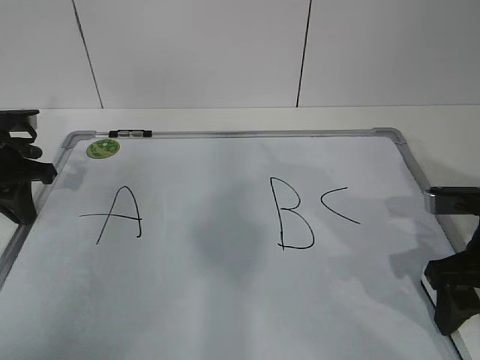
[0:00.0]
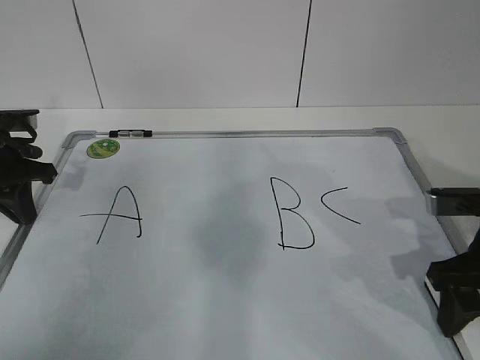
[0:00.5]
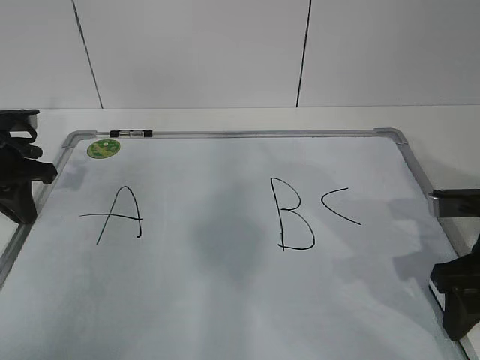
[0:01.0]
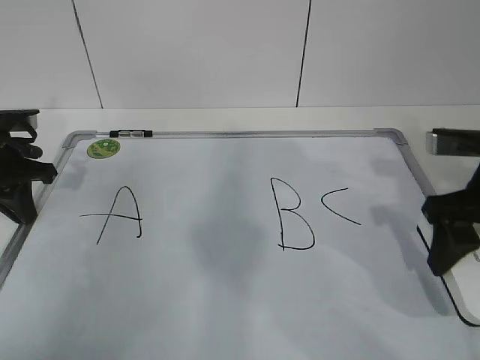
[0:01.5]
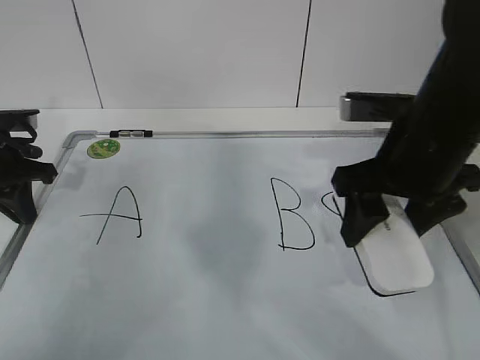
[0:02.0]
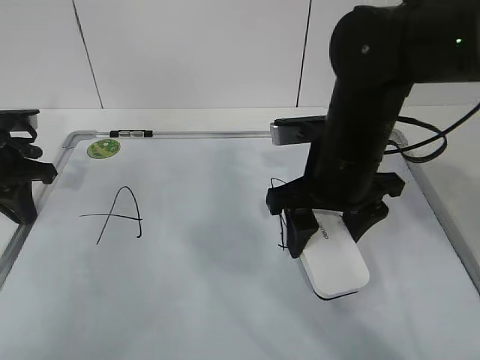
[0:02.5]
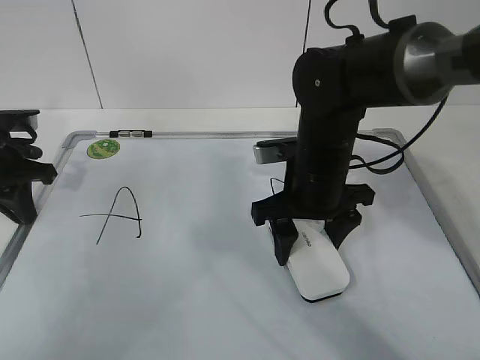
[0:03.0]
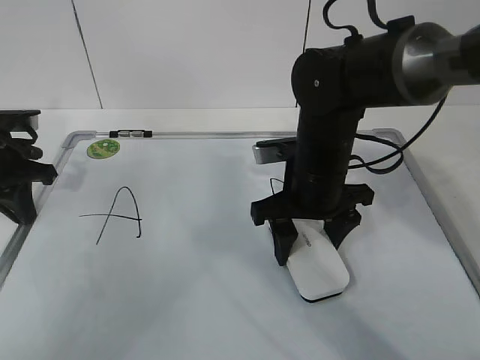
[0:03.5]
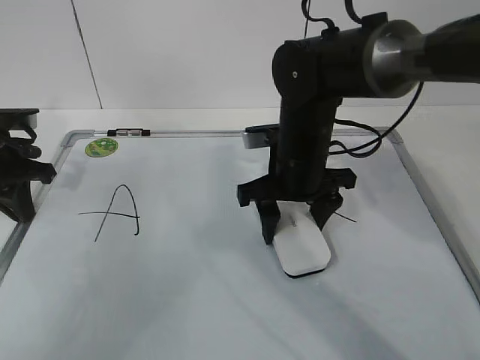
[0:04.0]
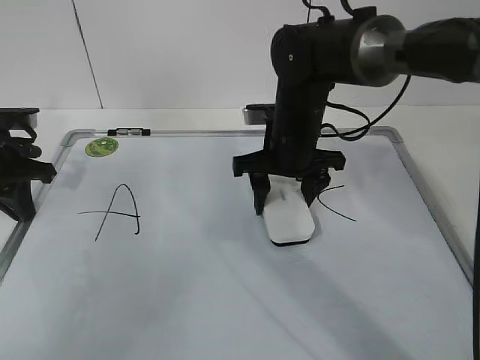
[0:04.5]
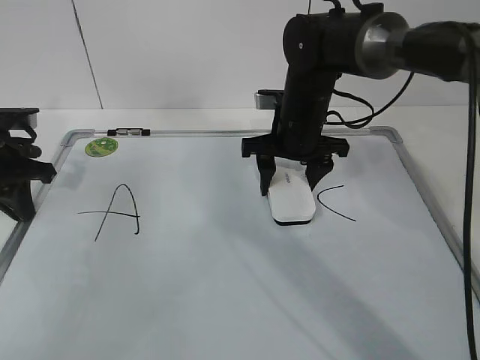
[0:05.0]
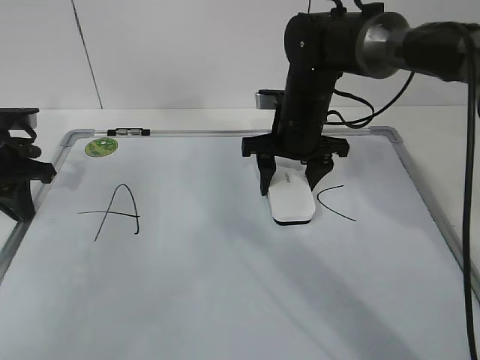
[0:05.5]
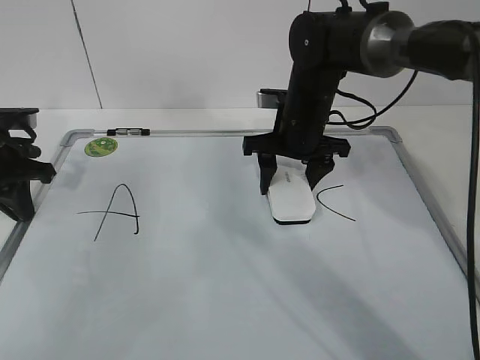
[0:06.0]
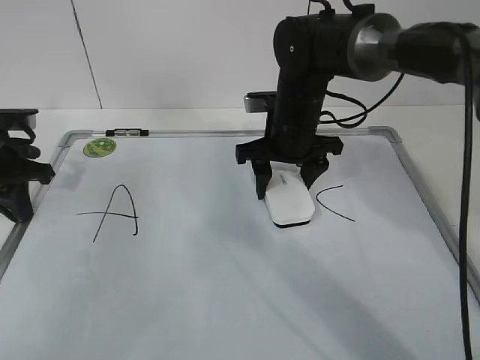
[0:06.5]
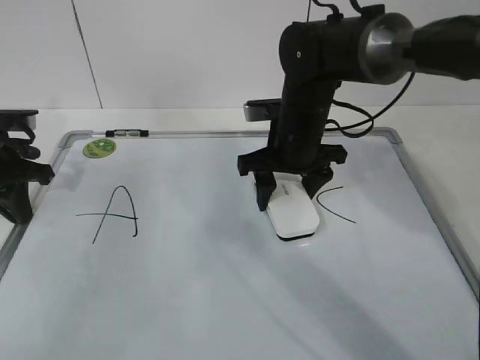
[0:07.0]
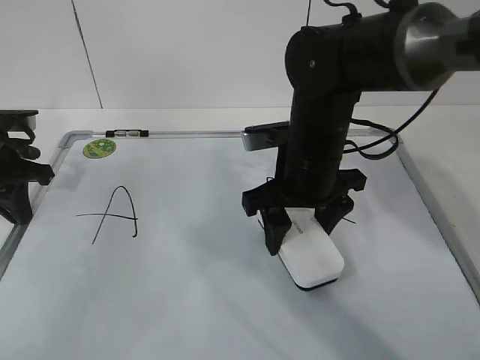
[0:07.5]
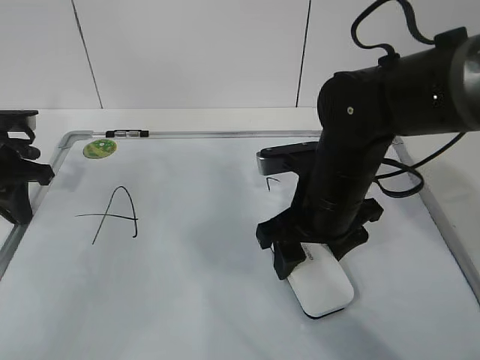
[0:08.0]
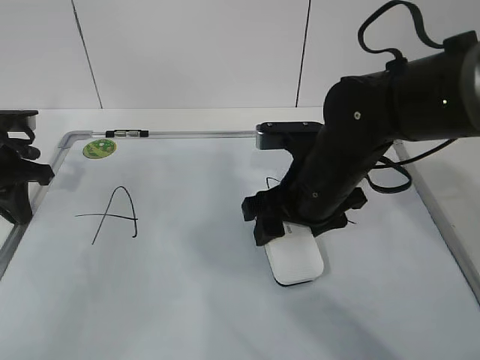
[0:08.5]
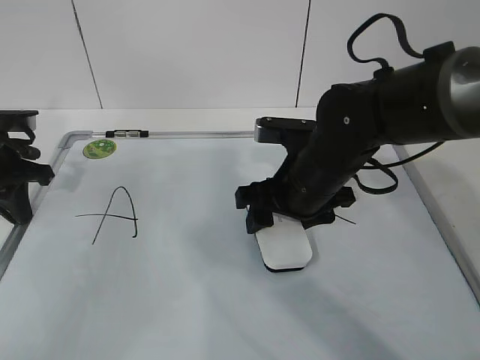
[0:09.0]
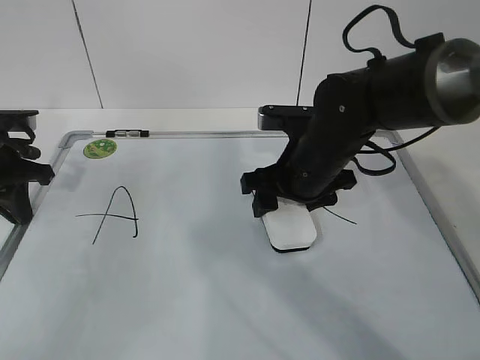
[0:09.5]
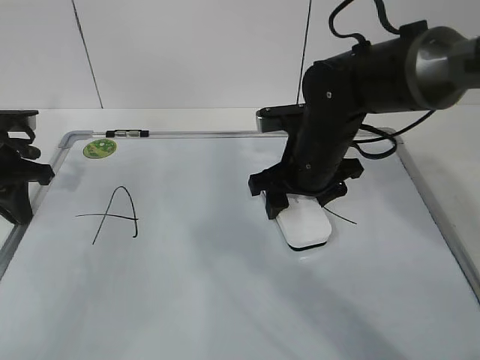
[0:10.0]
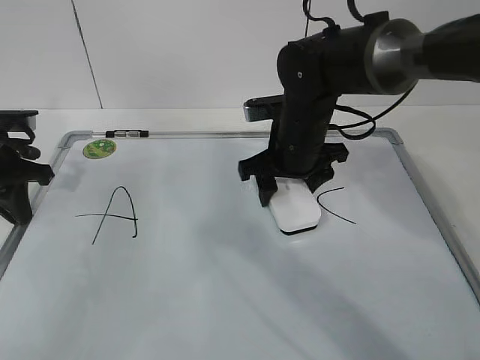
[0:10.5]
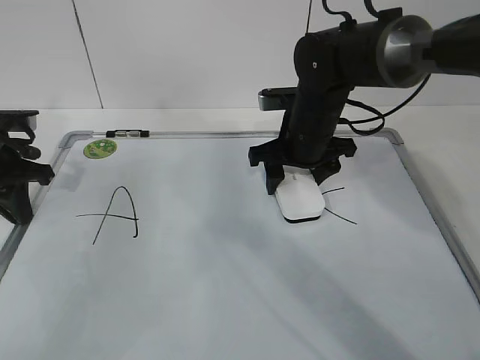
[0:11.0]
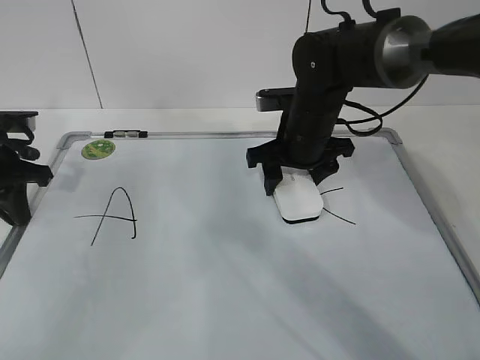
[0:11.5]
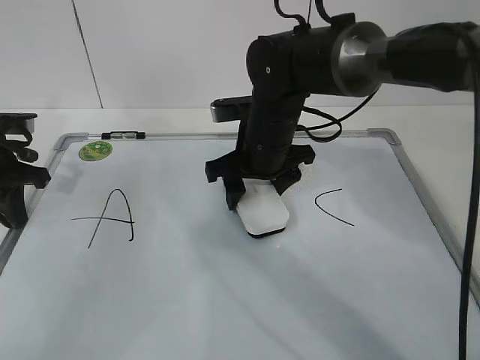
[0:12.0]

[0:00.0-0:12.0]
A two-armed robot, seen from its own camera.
Task of the whole recording: pick up the eraser on the blackboard and erase the letter "B".
Step, 0:00.0 to 0:10.0: Erase the letter B with your right hand.
0:00.0 to 0:02.0: The right gripper goes approximately 10 cm to the left and upward.
0:02.0 to 0:04.0: The right gripper heads downward, to the left and forward, covering roughly 15 cm.
0:04.0 to 0:06.0: The right gripper shifts approximately 5 cm forward.
0:06.0 to 0:08.0: The right gripper travels backward by some 15 cm.
0:08.0 to 0:10.0: The right gripper shifts approximately 5 cm forward.
0:10.0 to 0:12.0: The right gripper travels to the left by approximately 5 cm.

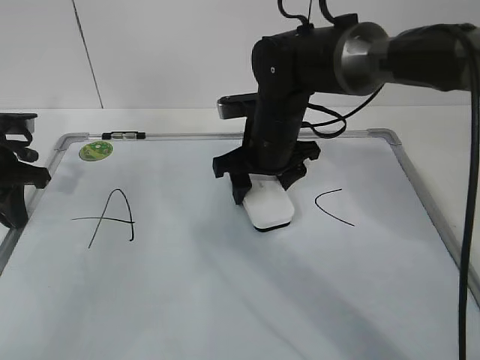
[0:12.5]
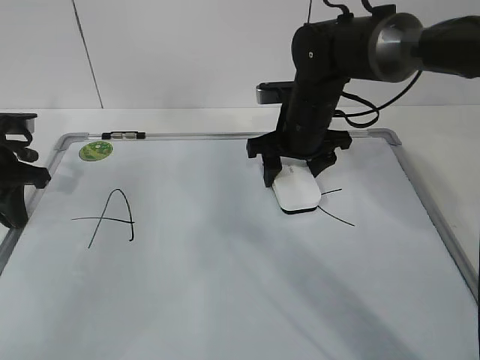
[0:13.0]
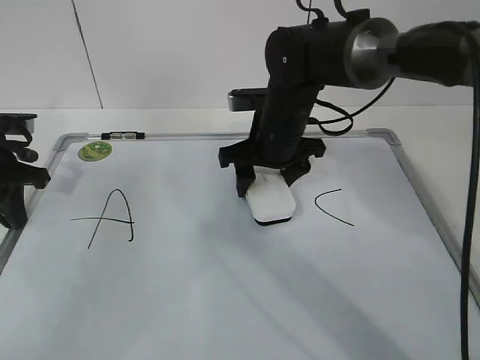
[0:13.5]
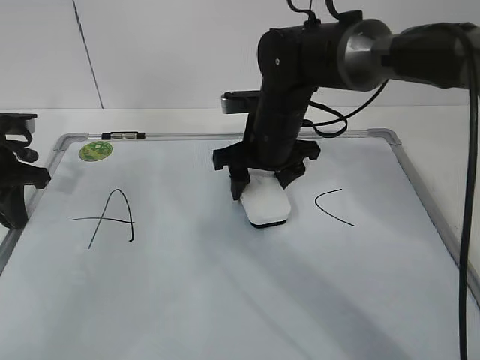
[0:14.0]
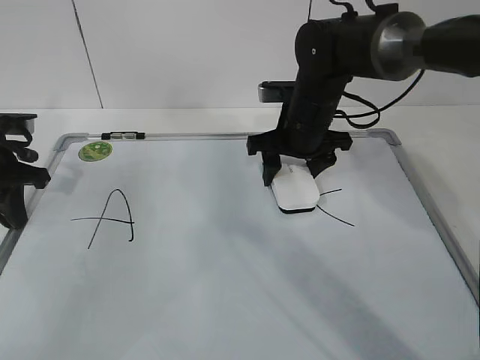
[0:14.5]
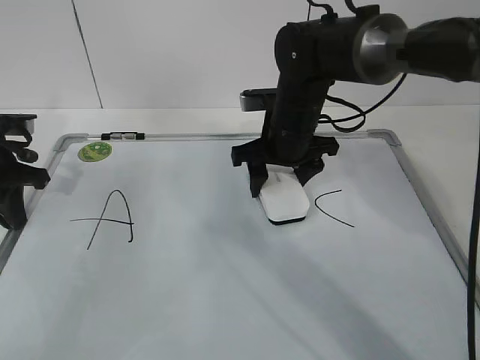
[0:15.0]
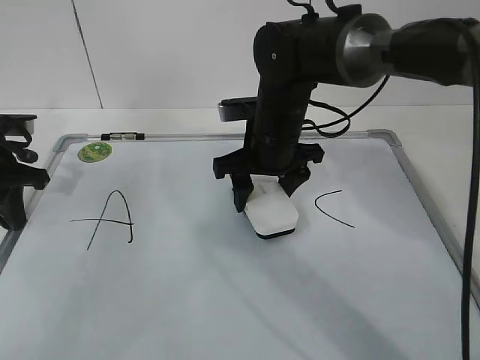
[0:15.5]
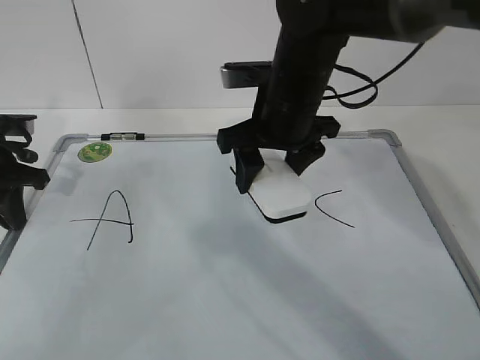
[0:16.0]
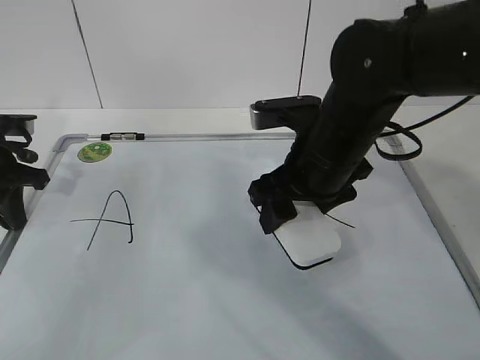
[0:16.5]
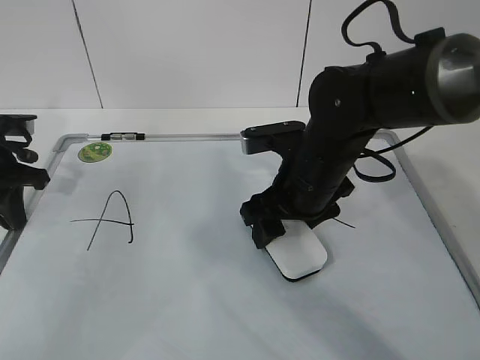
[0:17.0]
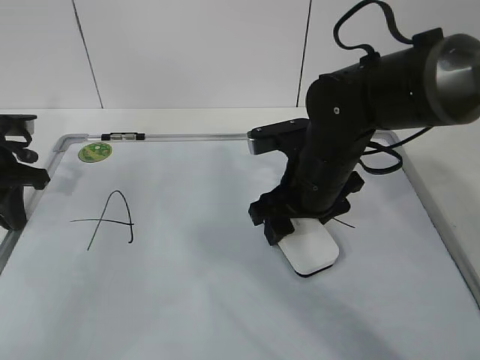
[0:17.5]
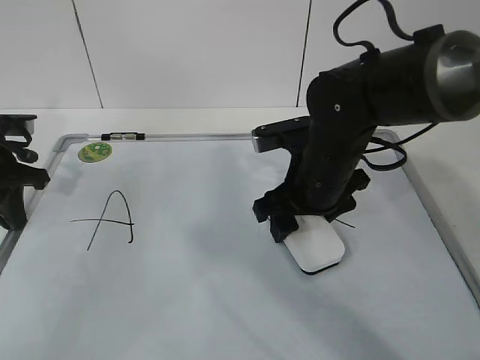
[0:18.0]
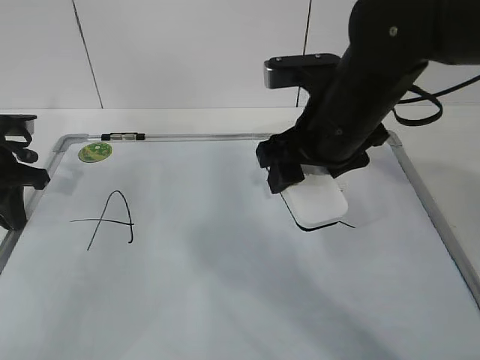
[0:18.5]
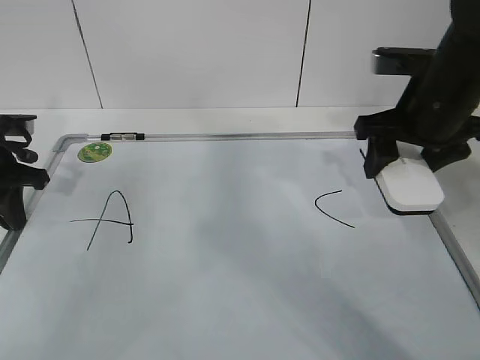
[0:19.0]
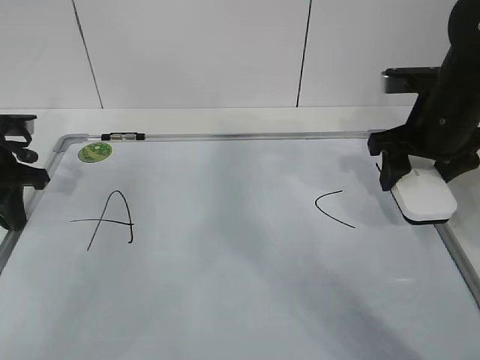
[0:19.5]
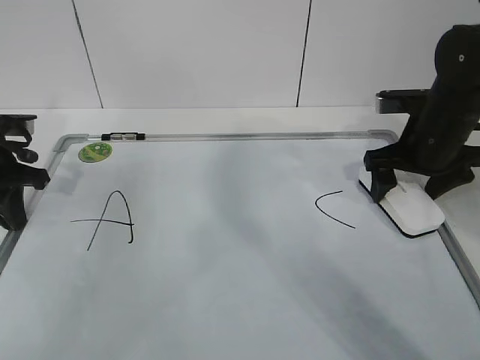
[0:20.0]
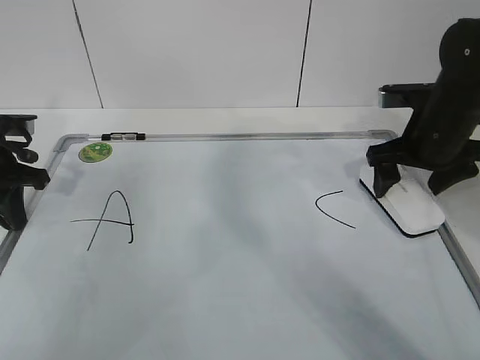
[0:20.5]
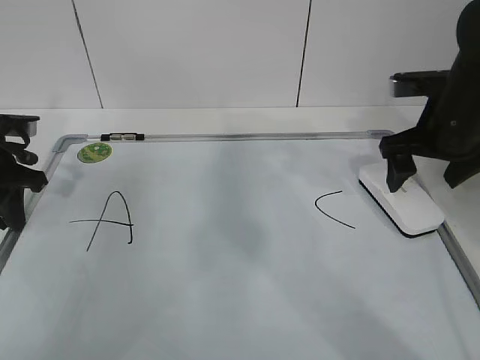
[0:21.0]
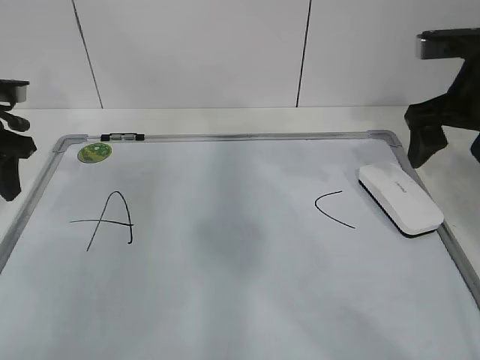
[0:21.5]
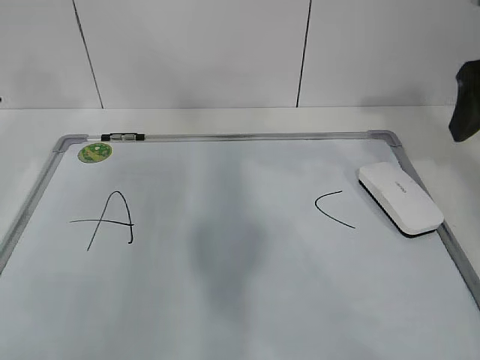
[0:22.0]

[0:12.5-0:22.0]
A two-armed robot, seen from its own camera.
Task of the whole recording: pick up the eraser on the blackboard and erase the letter "B".
0:12.5 to 0:14.5: The right gripper swings left and right, approximately 5 cm each way, with 2 reversals.
0:14.5 to 0:16.5: The right gripper goes some 10 cm backward.
0:16.5 to 0:18.0: The grippers make only small movements.
0:18.0 to 0:20.0: The right gripper moves to the right, some 15 cm, and opens up.
0:20.0 to 0:22.0: The left gripper goes roughly 10 cm upward, and opens, while the right gripper goes approximately 15 cm upward and backward.

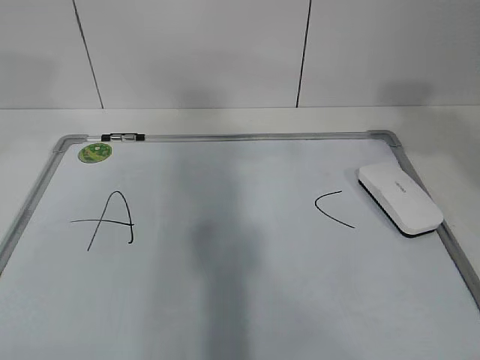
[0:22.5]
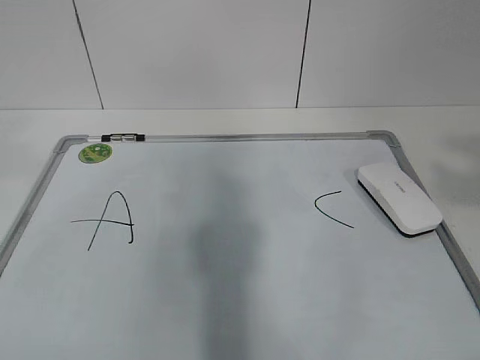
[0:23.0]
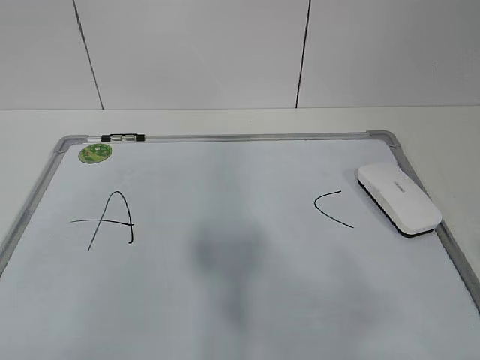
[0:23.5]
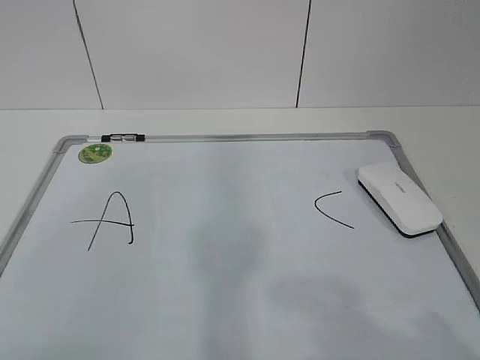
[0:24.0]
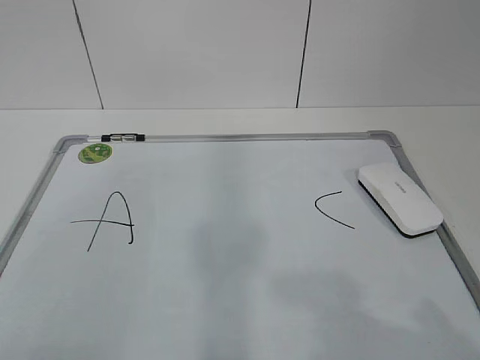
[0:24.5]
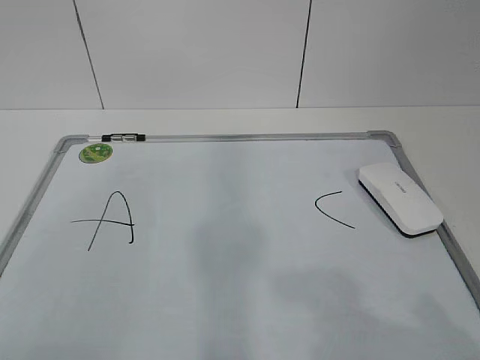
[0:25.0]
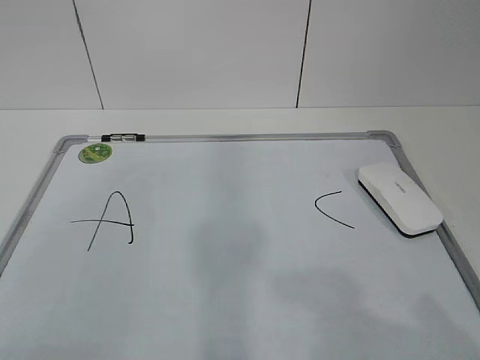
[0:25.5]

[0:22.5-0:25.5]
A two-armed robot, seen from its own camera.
Task of the whole recording: pick up the eraser on the blackboard and erase the letter "B".
0:22.5 to 0:24.0: The right gripper goes approximately 25 cm backward and downward. Meanwhile the left gripper goes approximately 30 cm backward.

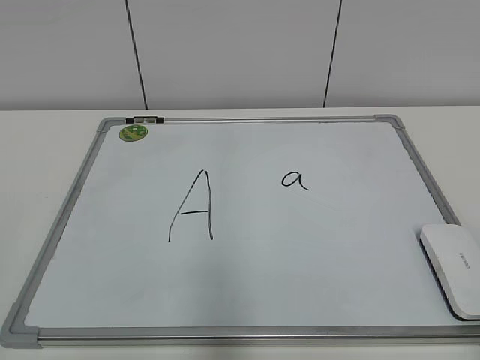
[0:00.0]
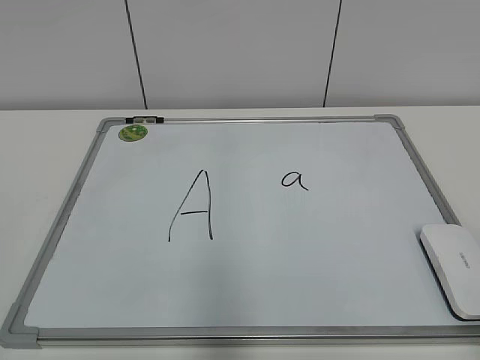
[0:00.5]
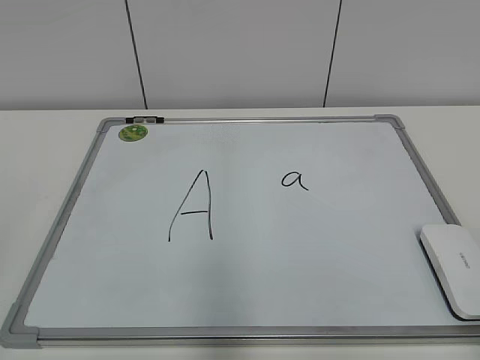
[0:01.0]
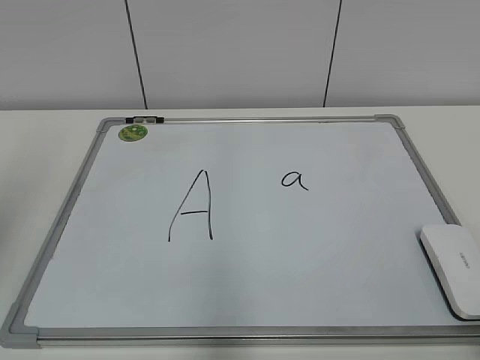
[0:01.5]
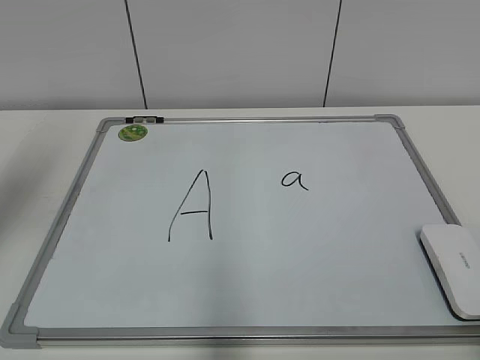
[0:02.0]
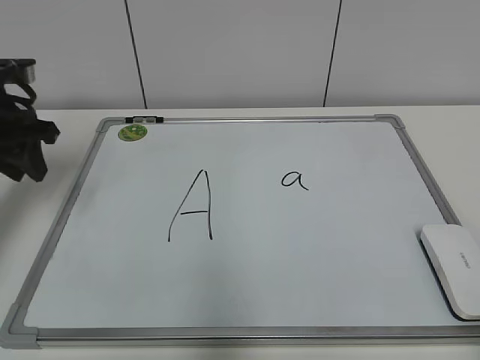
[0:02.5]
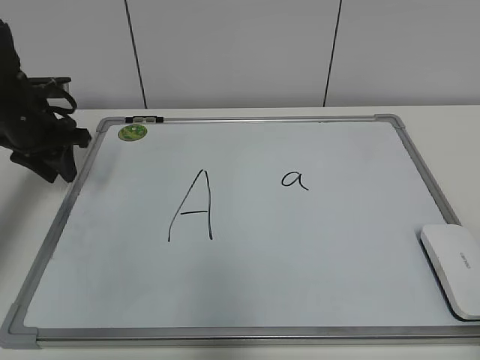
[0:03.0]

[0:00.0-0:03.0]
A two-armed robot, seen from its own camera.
Task of the whole recording: pick up the eraser on the blackboard and erase the letter "a".
0:01.5 to 0:03.0: The left gripper goes some 30 cm forward and downward.
